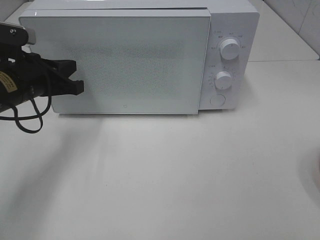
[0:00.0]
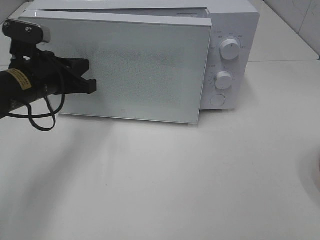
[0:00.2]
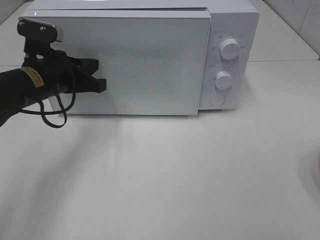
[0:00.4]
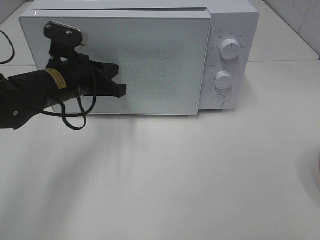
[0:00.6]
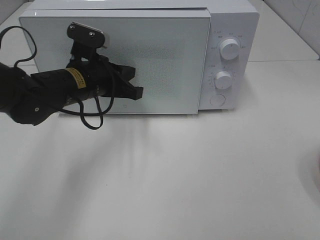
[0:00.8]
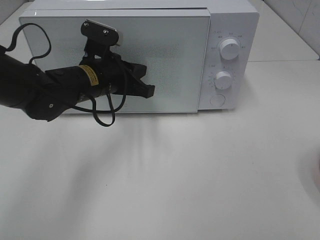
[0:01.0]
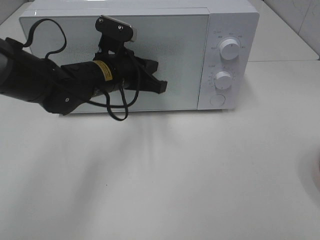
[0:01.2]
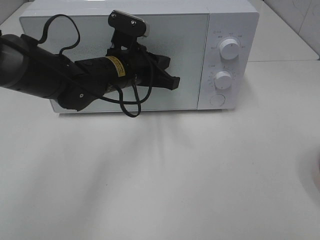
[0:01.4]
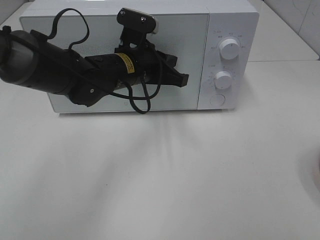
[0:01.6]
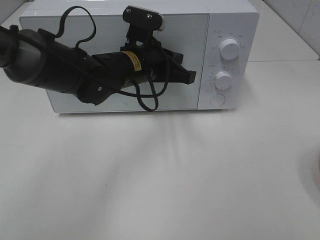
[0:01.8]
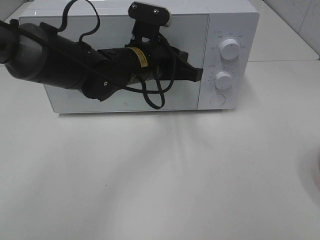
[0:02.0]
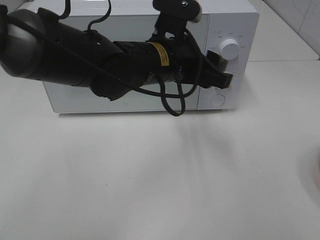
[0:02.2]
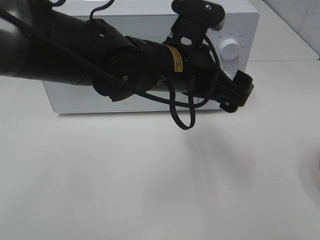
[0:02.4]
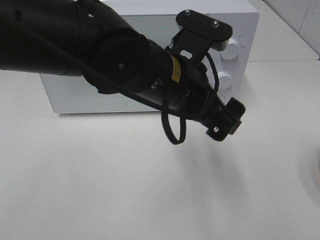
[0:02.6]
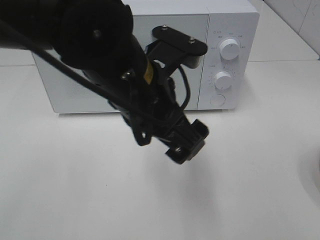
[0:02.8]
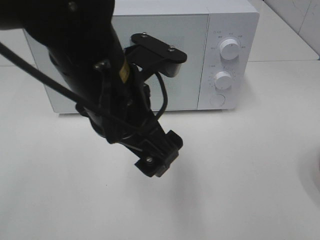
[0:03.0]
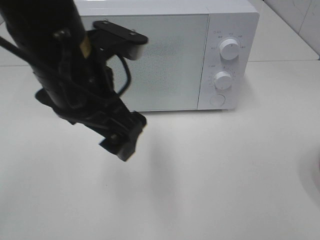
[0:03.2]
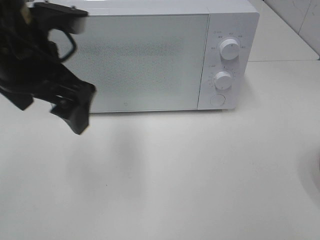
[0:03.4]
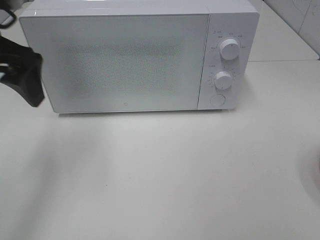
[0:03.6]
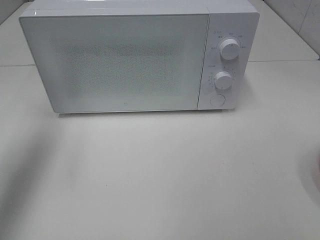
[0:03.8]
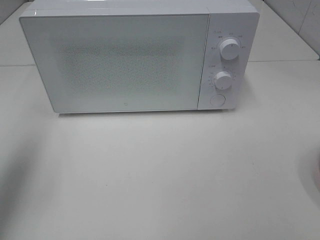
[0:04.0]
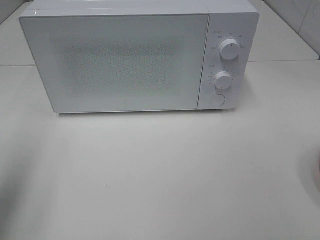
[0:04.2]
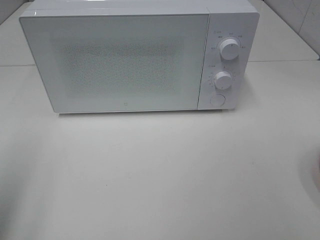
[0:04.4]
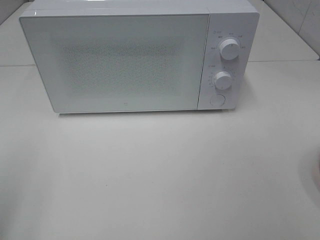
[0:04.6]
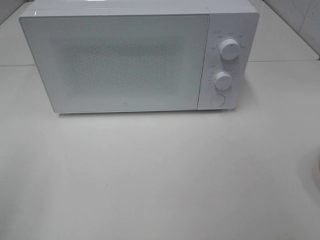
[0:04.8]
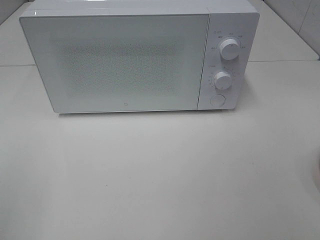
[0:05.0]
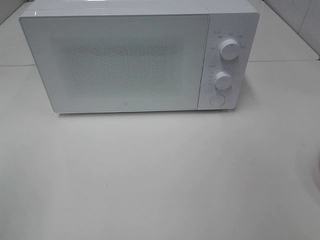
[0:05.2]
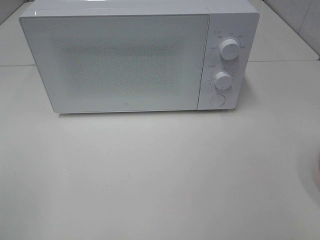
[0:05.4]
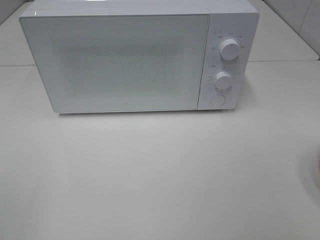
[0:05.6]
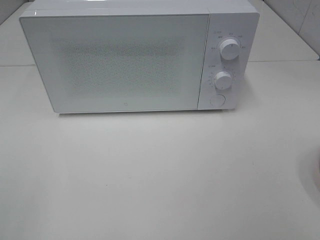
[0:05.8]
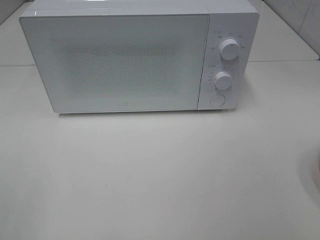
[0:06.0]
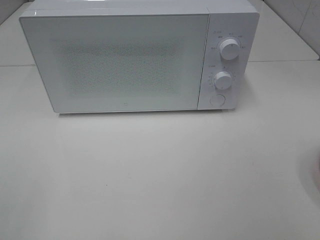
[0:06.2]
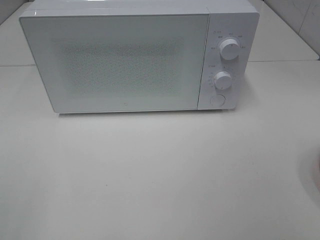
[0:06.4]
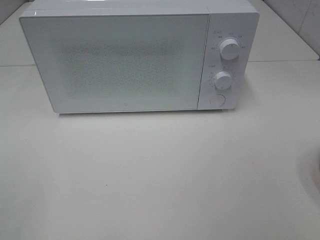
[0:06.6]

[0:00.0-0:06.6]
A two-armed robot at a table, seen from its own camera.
Task of the whole recording: Heat the burger.
0:00.0 to 0:01.6: The left gripper is displaced to the right by approximately 15 cm.
0:01.6 to 0:03.2: The left gripper is displaced backward and upward by approximately 15 cm, and opens its fingers.
0:03.2 to 0:05.0: The left gripper moves to the left and backward, approximately 30 cm.

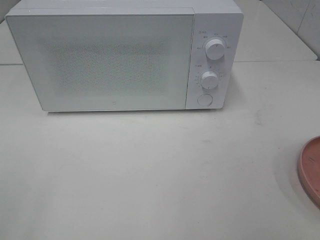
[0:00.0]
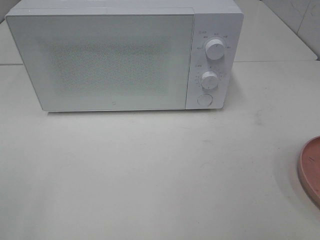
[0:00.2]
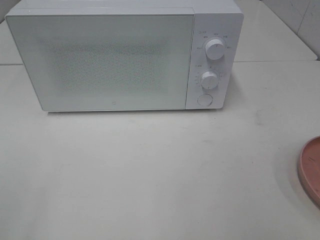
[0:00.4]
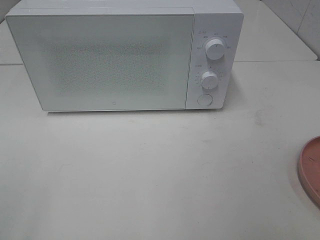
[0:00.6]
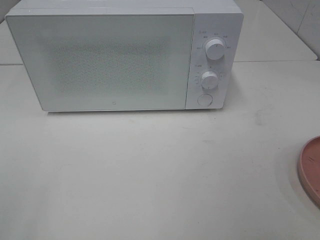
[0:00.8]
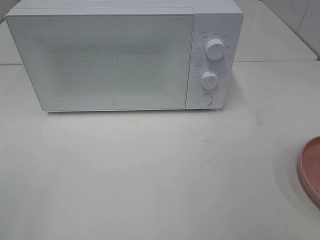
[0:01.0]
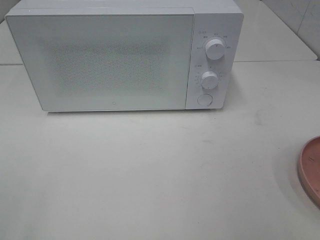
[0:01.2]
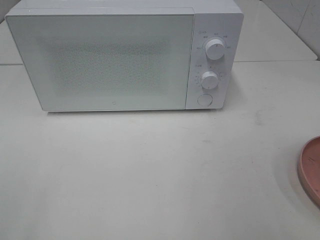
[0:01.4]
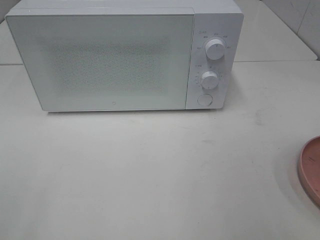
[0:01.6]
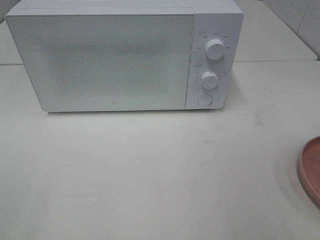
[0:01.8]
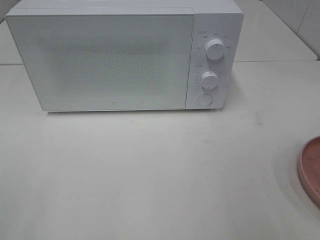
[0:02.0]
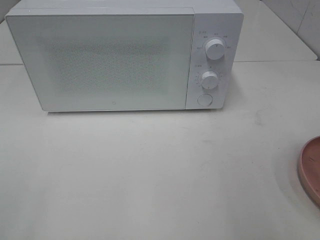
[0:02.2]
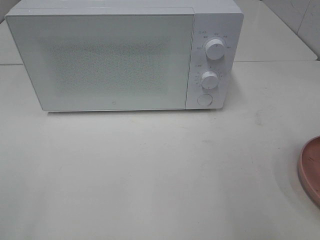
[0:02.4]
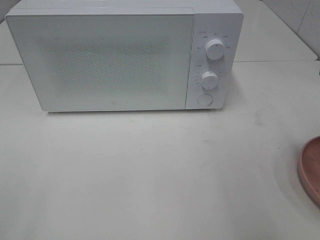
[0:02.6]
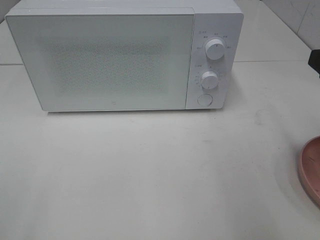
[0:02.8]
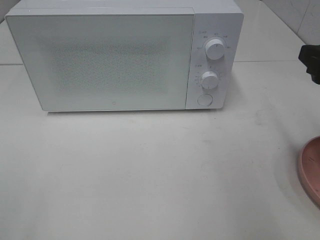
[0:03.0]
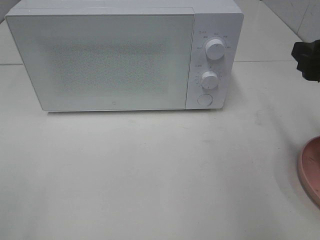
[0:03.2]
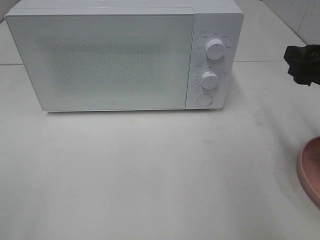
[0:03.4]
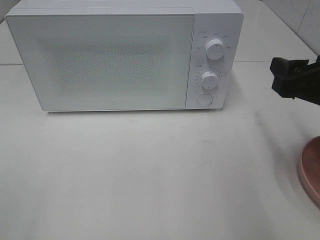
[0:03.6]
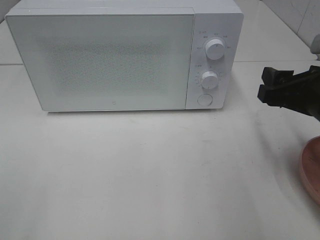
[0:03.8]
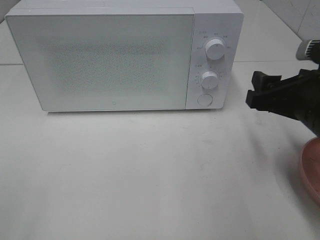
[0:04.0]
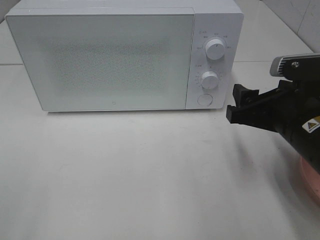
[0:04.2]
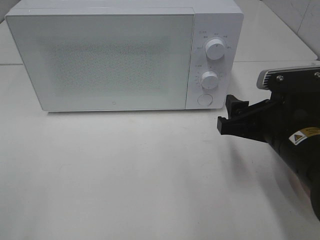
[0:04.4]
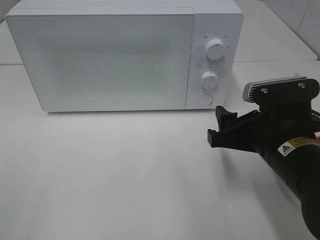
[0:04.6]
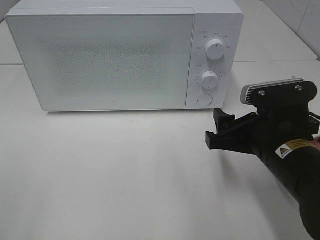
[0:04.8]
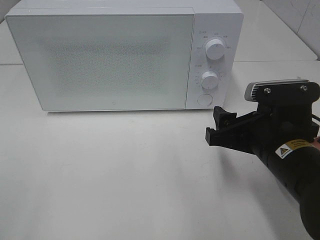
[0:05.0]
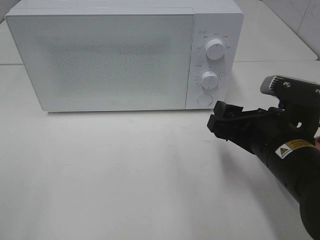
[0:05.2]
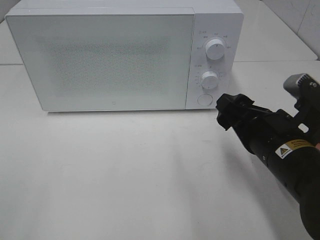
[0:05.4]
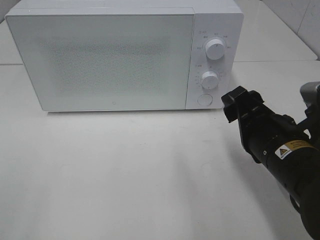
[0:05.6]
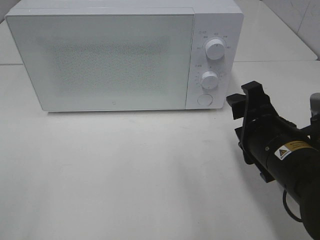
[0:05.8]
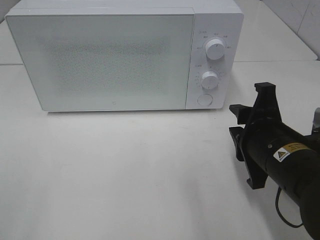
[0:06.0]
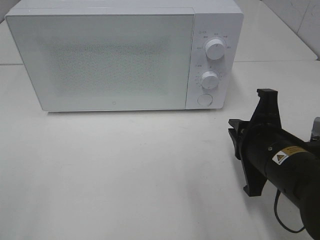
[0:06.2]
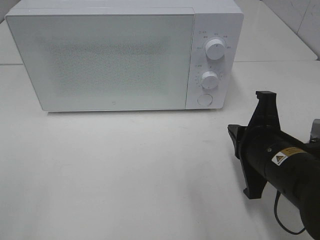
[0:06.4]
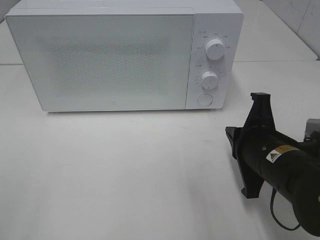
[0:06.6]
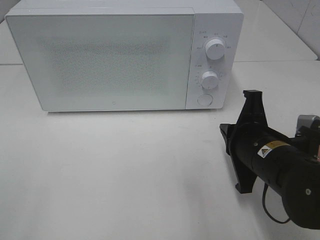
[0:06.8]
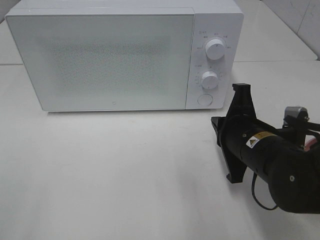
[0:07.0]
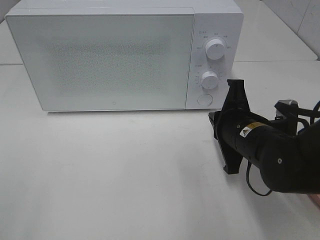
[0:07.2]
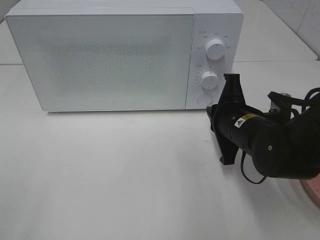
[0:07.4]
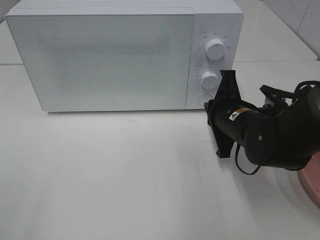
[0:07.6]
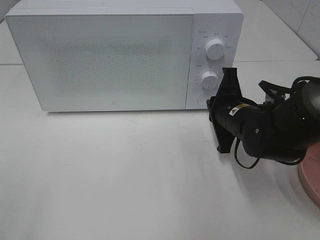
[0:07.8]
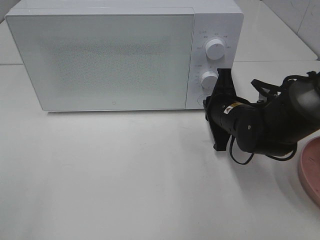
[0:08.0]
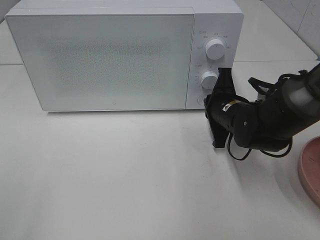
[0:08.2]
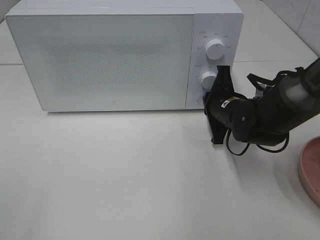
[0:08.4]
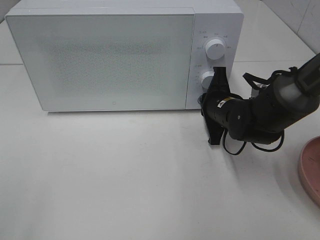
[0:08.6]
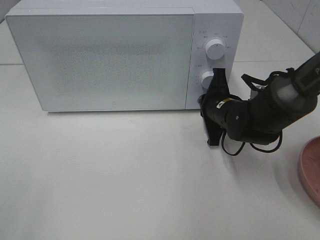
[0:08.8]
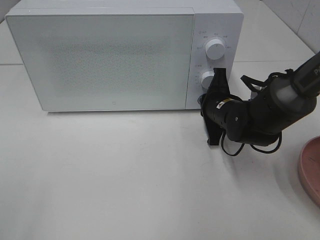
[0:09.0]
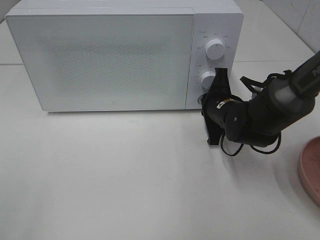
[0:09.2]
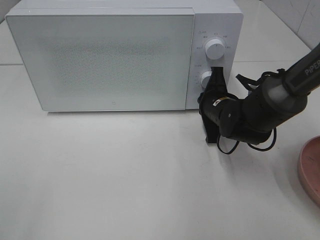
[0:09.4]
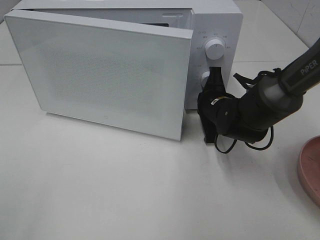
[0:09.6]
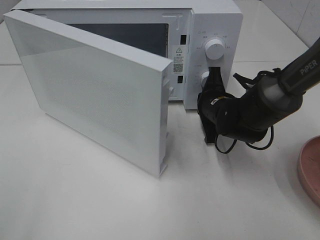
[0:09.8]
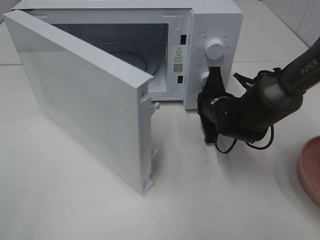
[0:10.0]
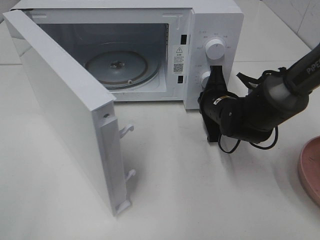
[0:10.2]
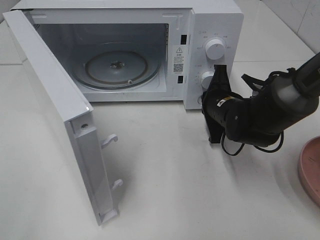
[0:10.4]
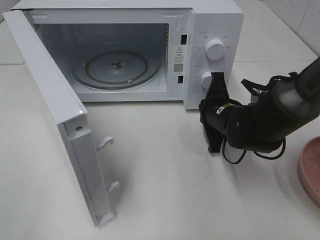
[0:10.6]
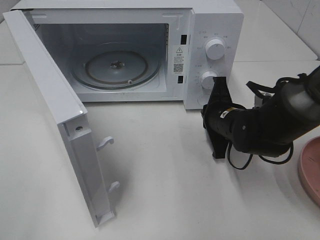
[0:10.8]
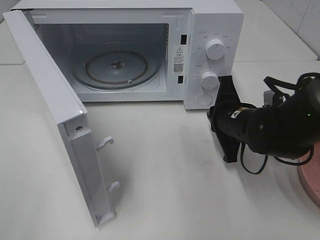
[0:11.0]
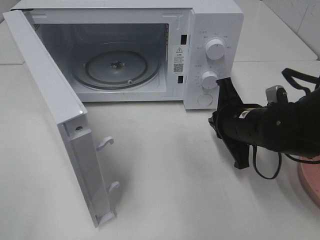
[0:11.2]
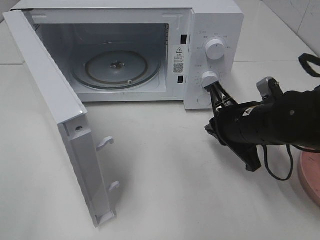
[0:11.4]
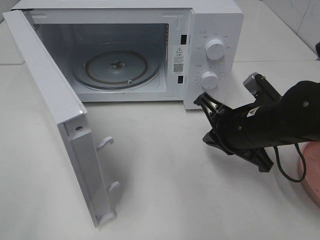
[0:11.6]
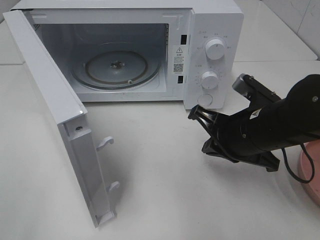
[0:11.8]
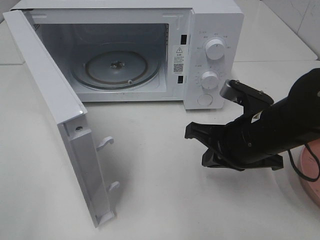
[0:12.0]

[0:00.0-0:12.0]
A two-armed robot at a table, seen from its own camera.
Task of the whole recording: Heat the burger.
Step, 0:00.0 to 0:10.6: Right hand: press the switch.
0:01.6 to 0:03.0: The right gripper goes approximately 15 cm forward.
0:03.0 to 0:04.4: The right gripper travels to the left and downward by roughly 15 cm.
0:04.4 to 0:06.0: The right gripper closes up.
0:06.0 to 0:07.6: The right gripper travels forward by approximately 10 cm, and closes up.
0:07.6 to 0:09.0: The right gripper shifts roughly 5 cm forward.
0:10.4 to 0:12.0: The right gripper travels backward and upward by about 15 cm.

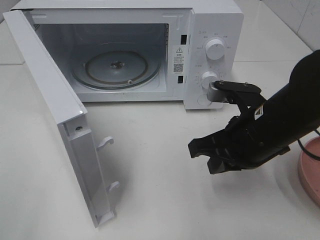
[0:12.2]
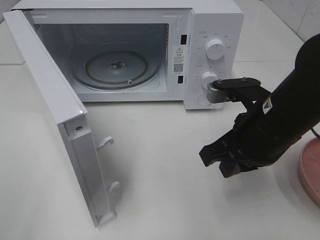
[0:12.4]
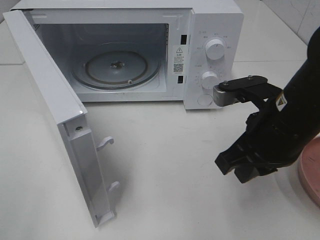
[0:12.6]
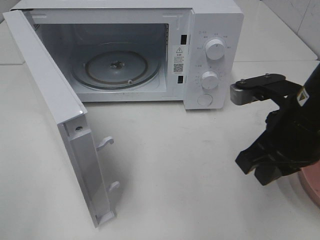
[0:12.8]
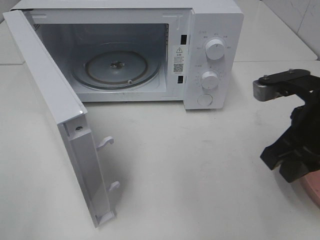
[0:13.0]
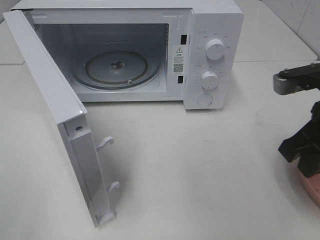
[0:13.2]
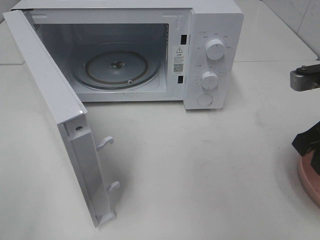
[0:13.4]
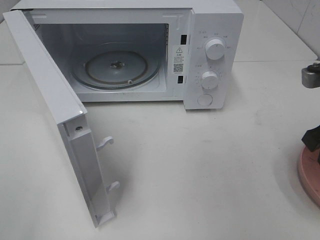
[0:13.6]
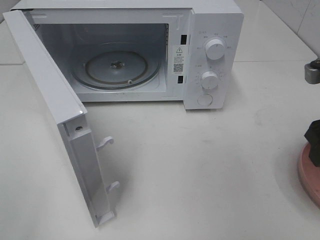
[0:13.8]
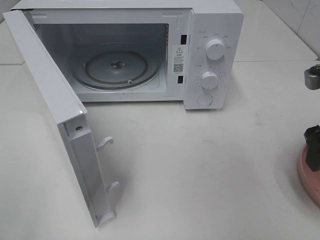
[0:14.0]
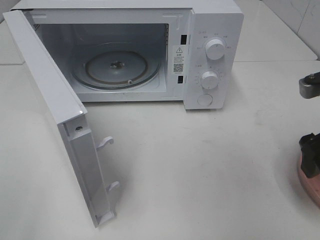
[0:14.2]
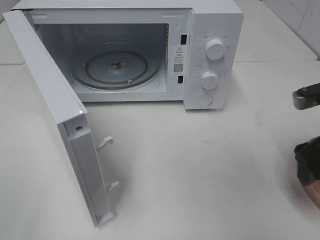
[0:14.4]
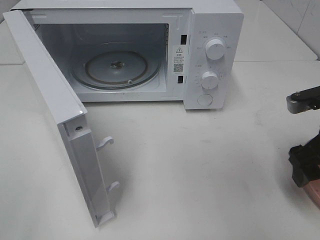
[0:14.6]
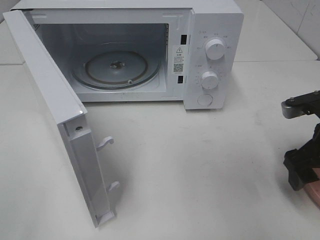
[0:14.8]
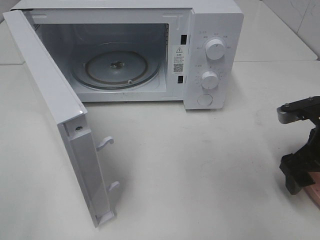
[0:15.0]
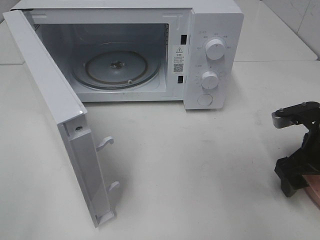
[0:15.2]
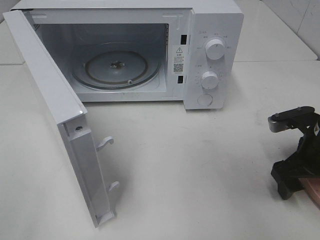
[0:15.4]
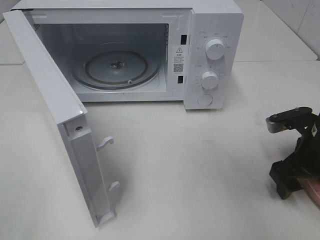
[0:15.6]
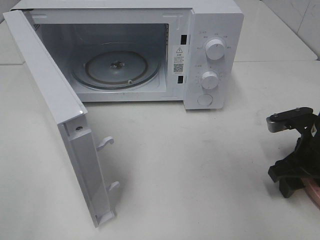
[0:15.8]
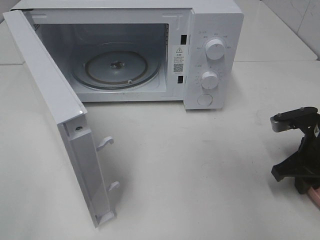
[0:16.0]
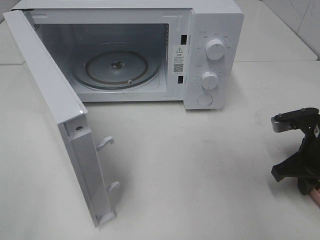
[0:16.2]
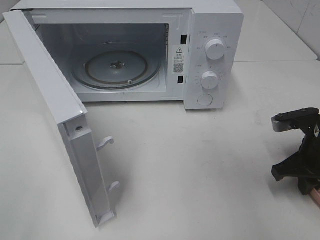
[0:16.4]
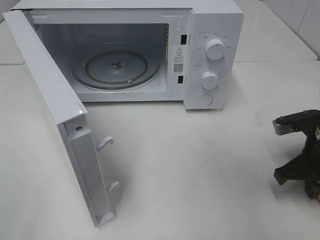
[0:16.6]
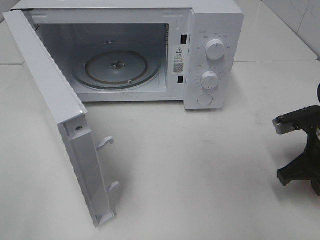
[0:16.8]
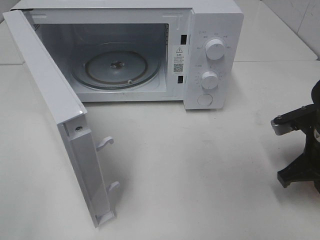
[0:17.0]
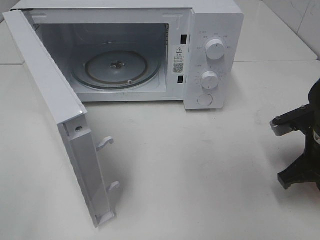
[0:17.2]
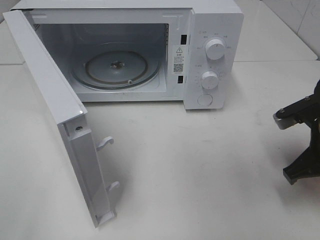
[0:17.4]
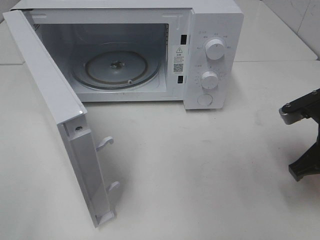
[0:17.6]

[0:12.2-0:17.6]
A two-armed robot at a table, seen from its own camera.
Task of the whole recording: Heat the burger.
Step, 0:12.2 to 0:16.8: Right hand: grab the plate with the hamburger.
0:12.2 to 0:13.6: The right gripper shifts approximately 15 cm to the right and upward, and opens.
0:13.6 to 0:15.0: The right gripper goes roughly 10 cm downward, and opens its fingers.
0:15.0 to 0:16.2: The right gripper closes up.
0:16.2 to 0:17.6: The right gripper shifts approximately 5 cm upward.
